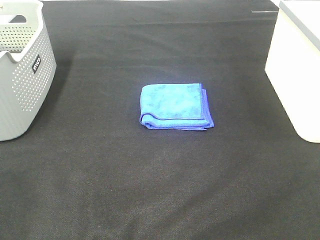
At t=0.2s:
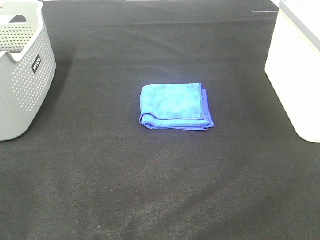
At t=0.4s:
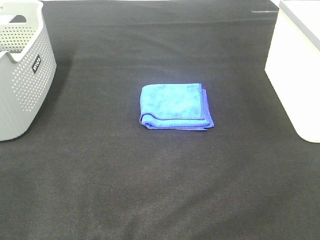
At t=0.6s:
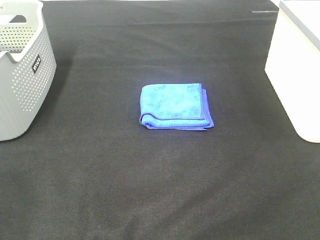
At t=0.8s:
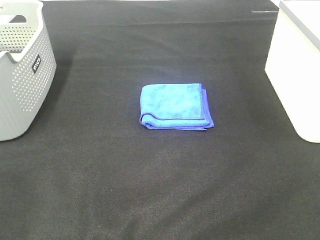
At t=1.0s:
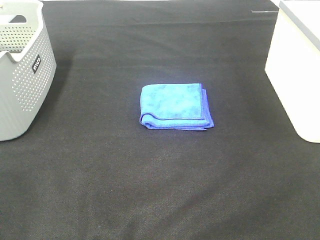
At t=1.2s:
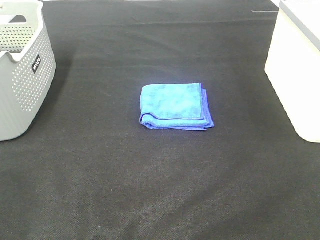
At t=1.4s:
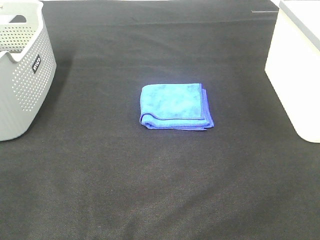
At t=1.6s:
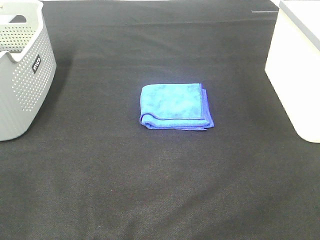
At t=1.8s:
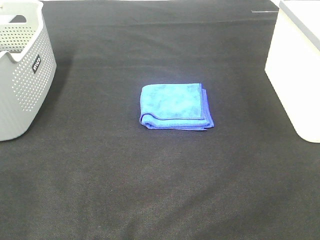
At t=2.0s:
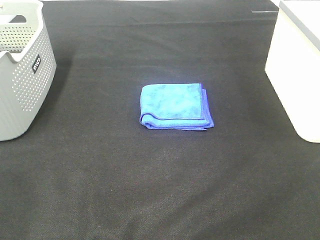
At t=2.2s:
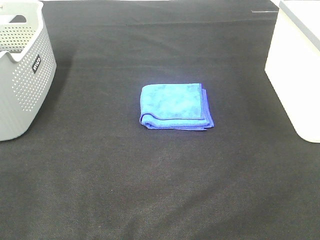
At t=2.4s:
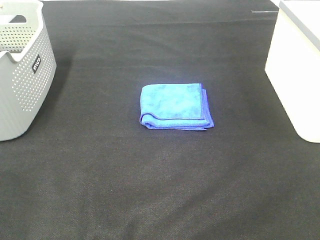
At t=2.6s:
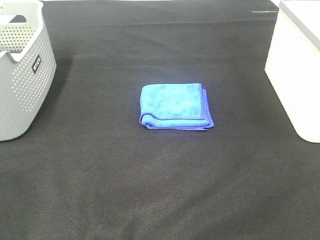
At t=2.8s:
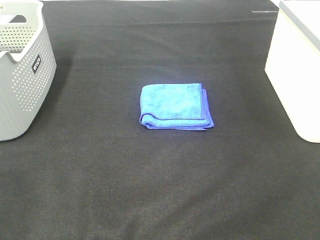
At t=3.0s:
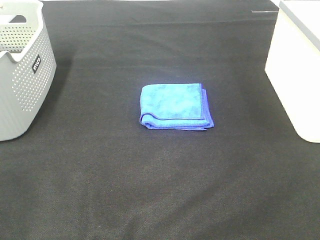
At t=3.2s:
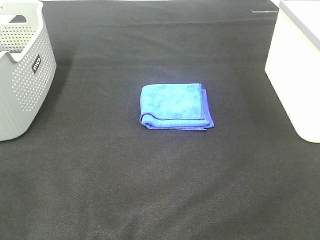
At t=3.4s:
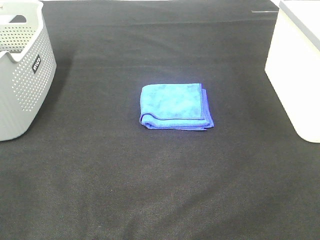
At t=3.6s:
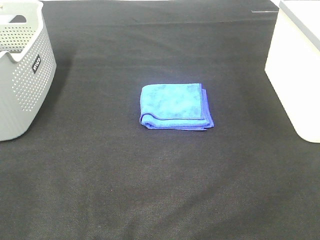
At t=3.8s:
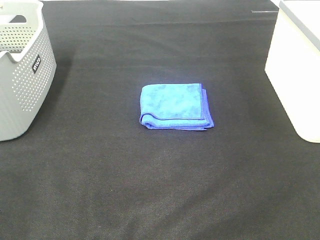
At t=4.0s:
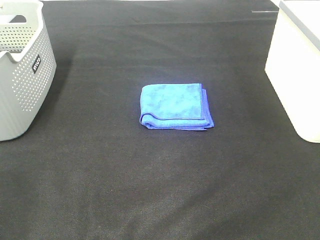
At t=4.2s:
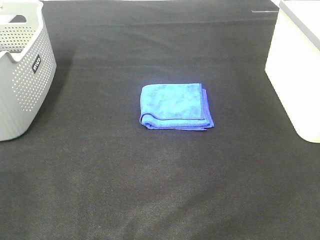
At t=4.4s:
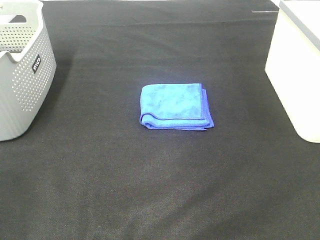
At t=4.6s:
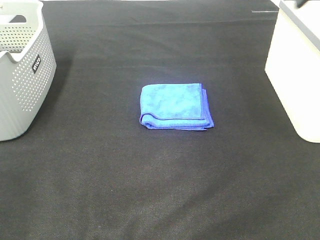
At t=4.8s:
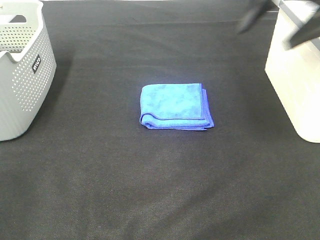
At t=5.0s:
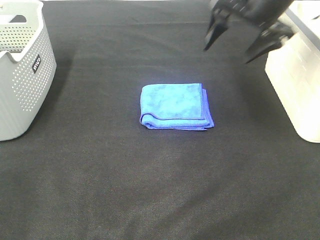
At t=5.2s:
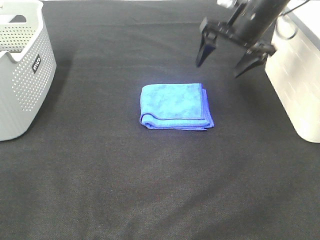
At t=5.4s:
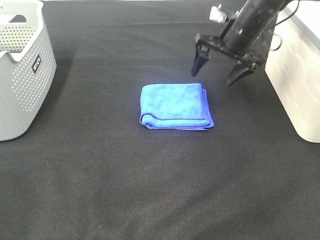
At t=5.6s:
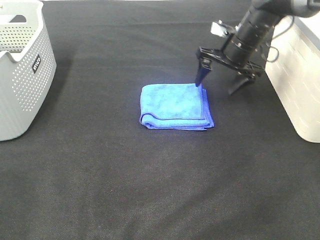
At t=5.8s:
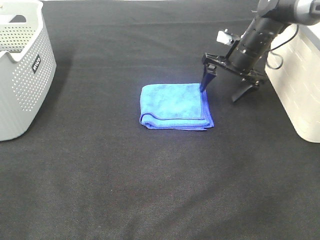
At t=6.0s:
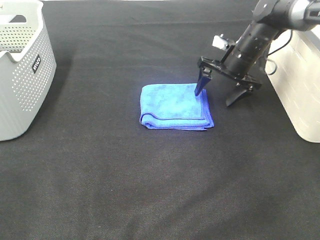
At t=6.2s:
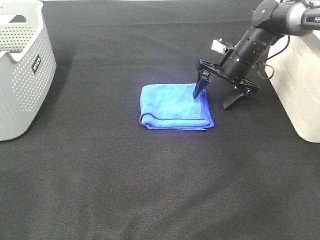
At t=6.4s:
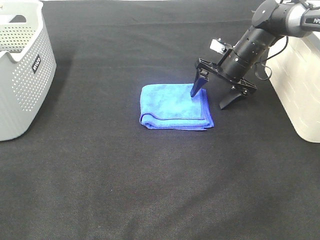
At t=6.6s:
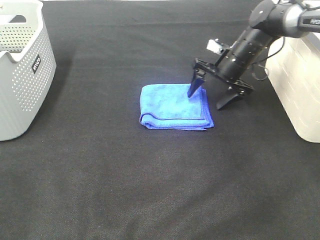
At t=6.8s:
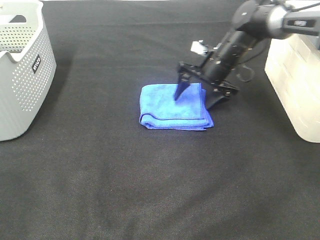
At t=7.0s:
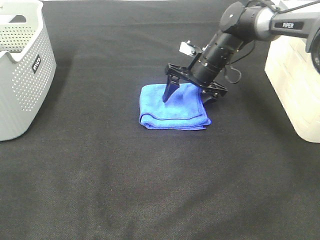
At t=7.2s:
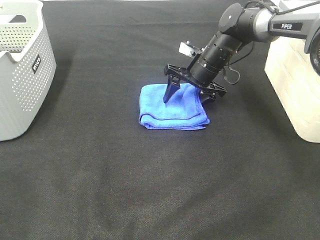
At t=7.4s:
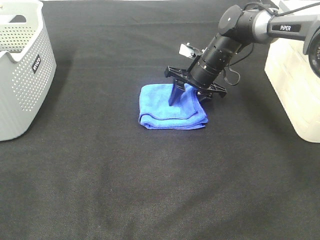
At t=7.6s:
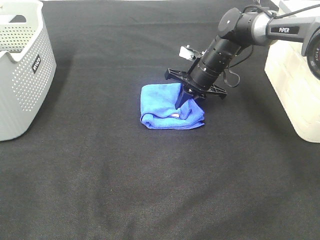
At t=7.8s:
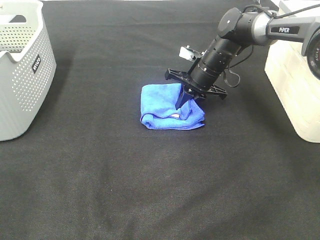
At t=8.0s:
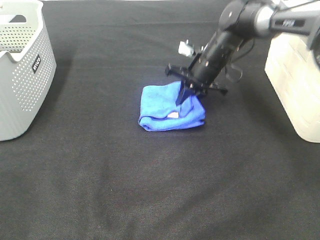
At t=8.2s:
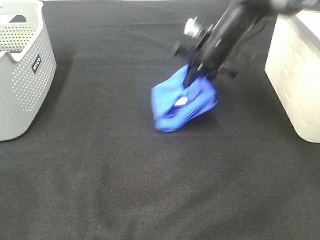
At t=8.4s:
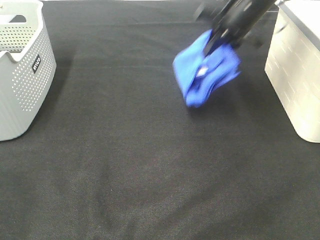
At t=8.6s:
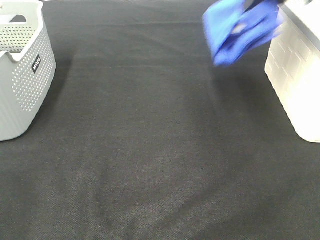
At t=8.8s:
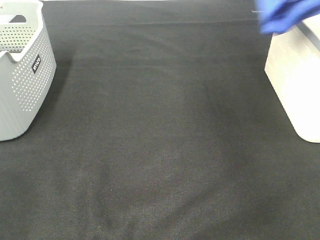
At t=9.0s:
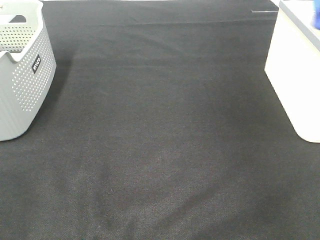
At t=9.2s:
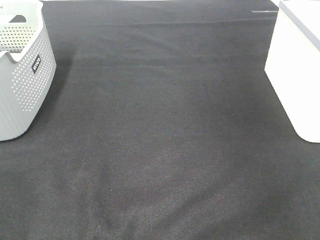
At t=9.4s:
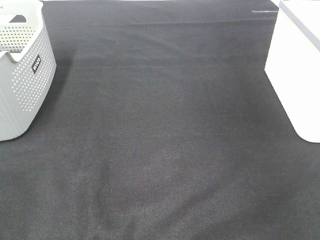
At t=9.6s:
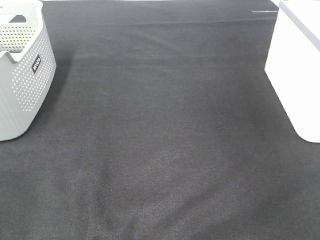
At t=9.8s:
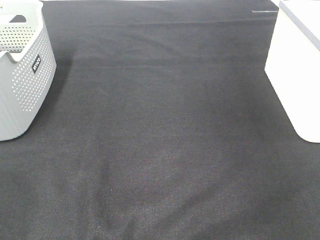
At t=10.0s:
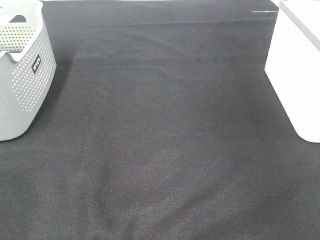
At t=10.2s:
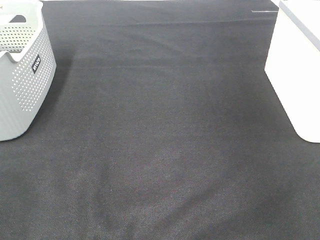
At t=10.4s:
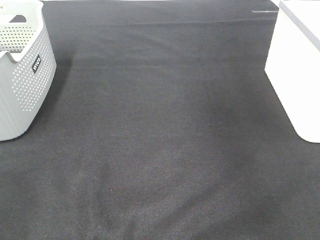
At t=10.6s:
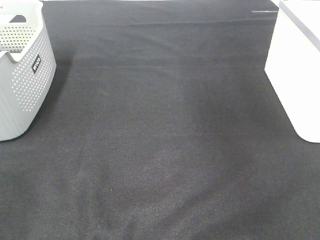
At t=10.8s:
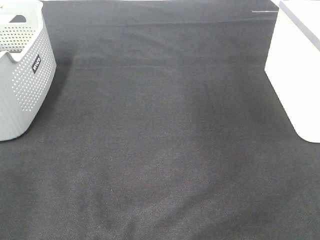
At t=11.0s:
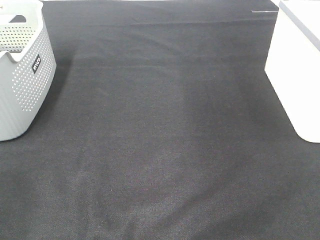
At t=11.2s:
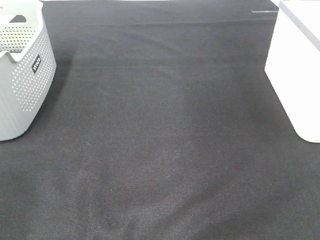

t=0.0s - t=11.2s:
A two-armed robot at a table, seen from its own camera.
Step, t=0.0s - t=7.6s: Right hand: grab the folded blue towel.
Step, t=7.8s - t=9.8s: Right hand: place the blue towel in right basket.
t=0.0s - t=3.2s: Both grippers stay put.
t=3.2s - t=4.8s: The right gripper travels forward by some 35 cm.
t=4.8s - t=6.4s: The right gripper is displaced downward and forward by some 25 cm.
t=6.4s - t=8.0s: The right gripper travels to the left by some 5 cm, and closes.
t=8.0s - t=9.6s: The right gripper travels to the right and upward by some 35 cm.

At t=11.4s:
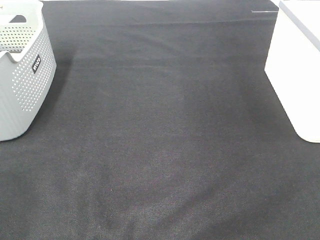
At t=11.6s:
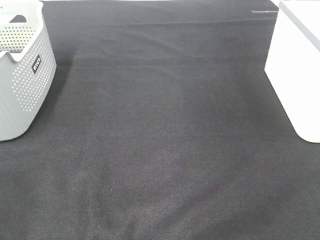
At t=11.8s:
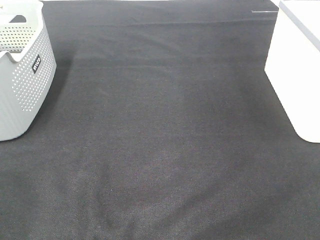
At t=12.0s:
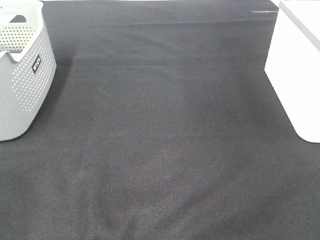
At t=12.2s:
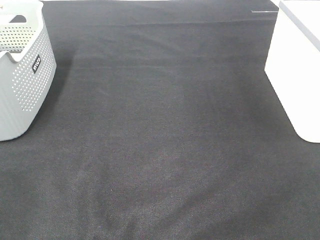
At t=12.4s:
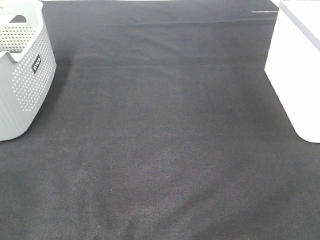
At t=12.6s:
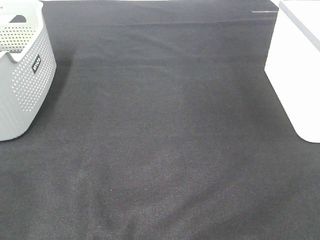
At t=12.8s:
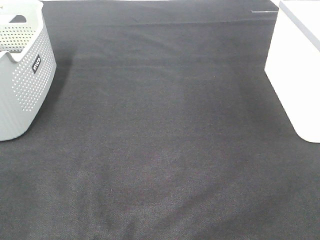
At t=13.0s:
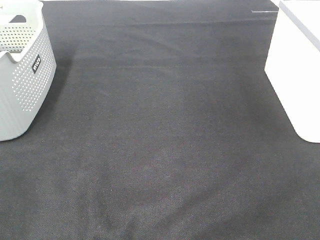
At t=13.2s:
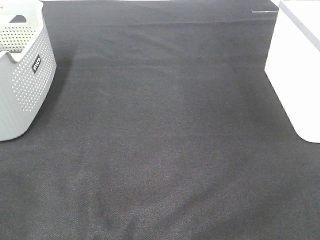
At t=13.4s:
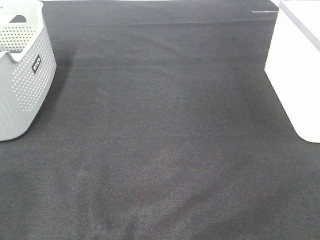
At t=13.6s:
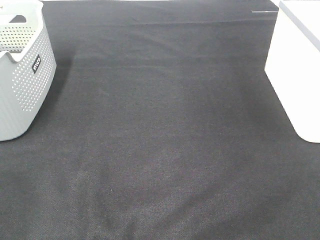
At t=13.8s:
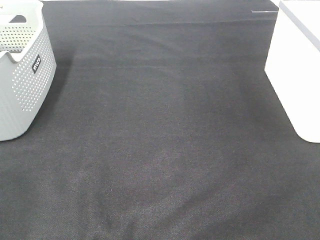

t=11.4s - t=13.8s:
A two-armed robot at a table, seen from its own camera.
t=12.6s - t=13.8s: Neither gripper changes place.

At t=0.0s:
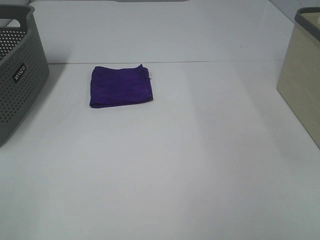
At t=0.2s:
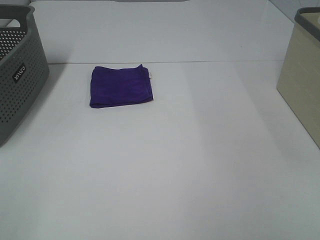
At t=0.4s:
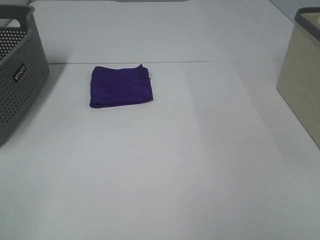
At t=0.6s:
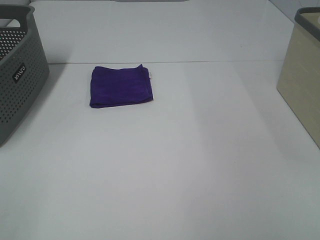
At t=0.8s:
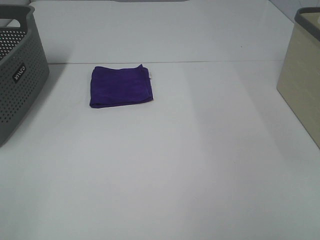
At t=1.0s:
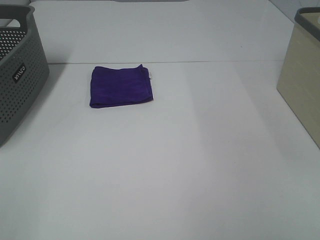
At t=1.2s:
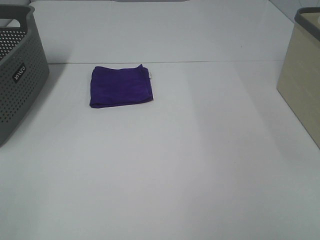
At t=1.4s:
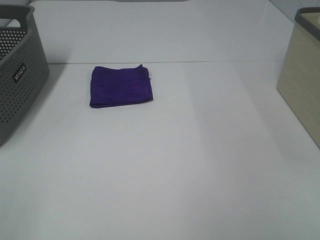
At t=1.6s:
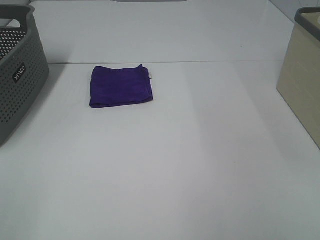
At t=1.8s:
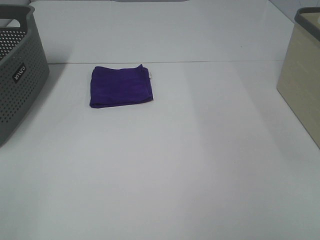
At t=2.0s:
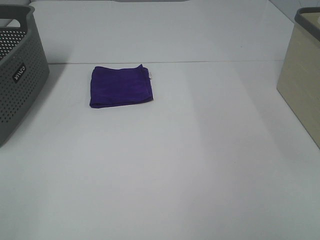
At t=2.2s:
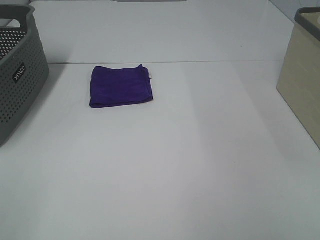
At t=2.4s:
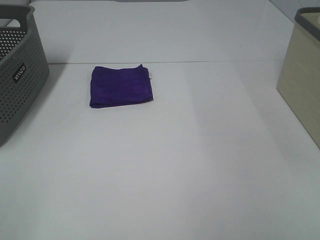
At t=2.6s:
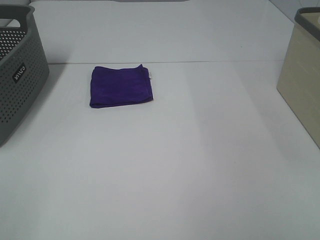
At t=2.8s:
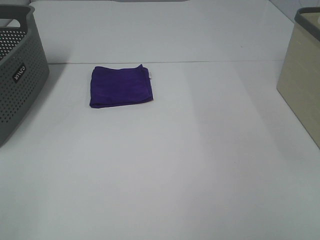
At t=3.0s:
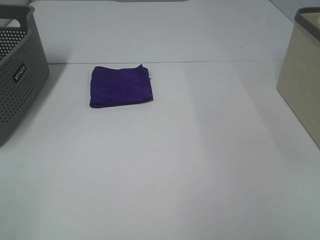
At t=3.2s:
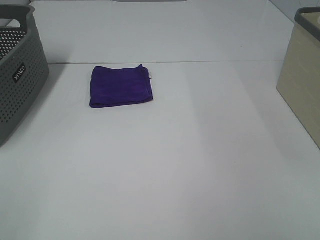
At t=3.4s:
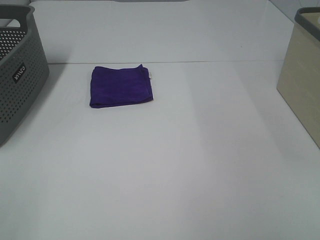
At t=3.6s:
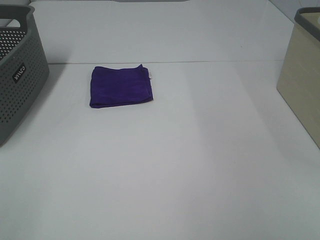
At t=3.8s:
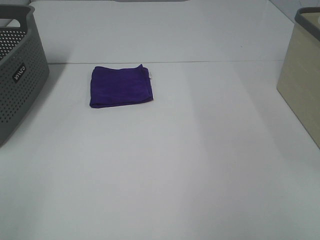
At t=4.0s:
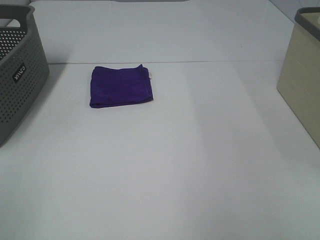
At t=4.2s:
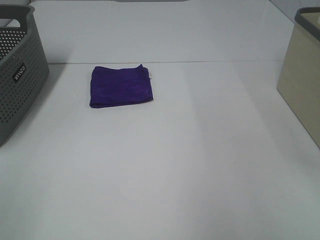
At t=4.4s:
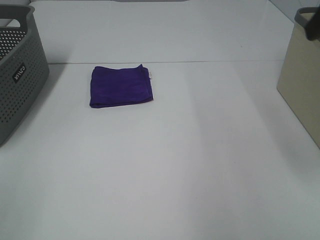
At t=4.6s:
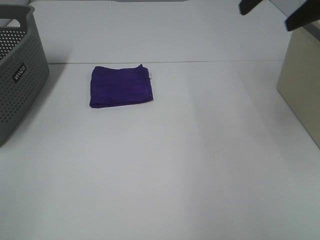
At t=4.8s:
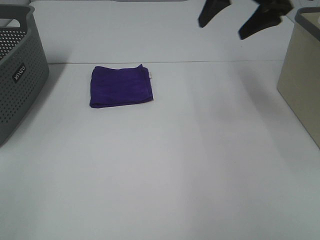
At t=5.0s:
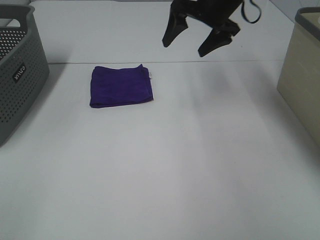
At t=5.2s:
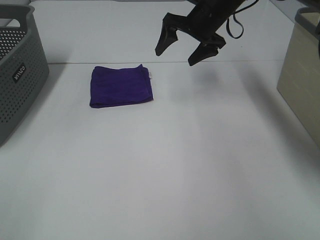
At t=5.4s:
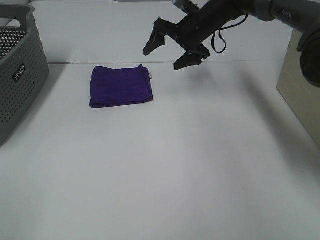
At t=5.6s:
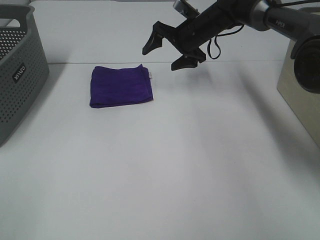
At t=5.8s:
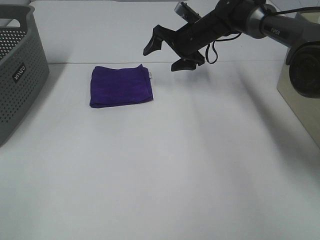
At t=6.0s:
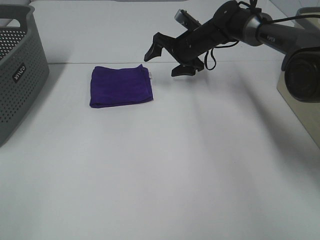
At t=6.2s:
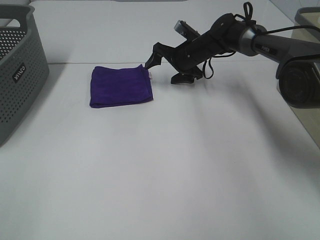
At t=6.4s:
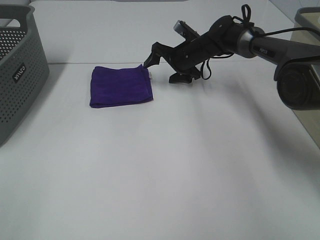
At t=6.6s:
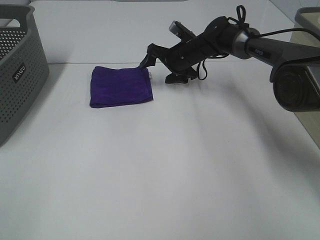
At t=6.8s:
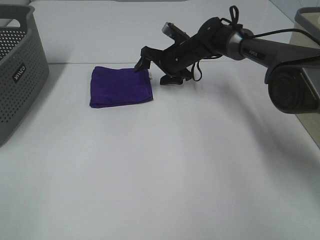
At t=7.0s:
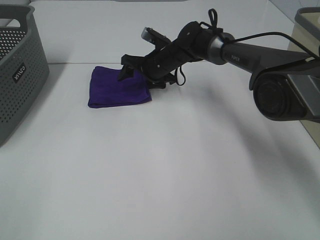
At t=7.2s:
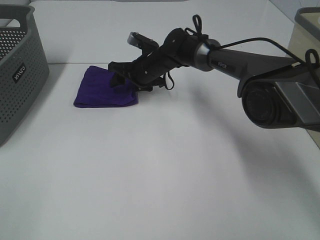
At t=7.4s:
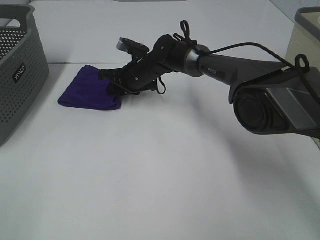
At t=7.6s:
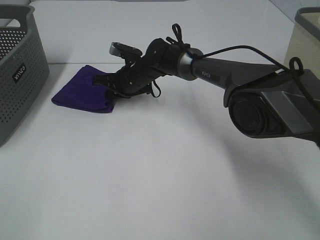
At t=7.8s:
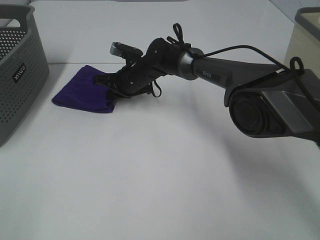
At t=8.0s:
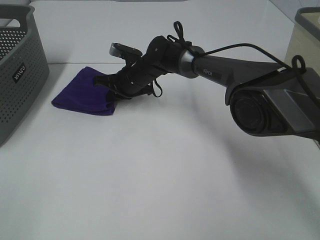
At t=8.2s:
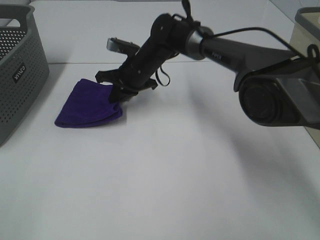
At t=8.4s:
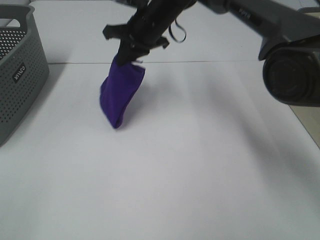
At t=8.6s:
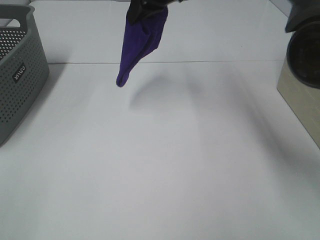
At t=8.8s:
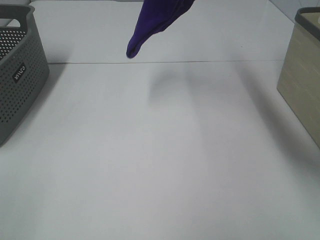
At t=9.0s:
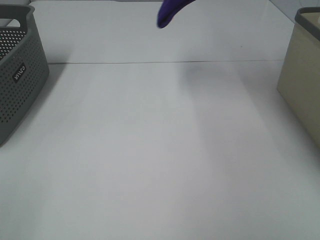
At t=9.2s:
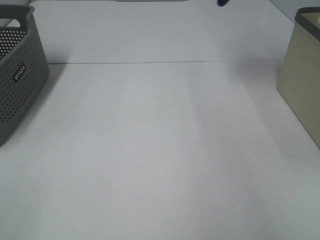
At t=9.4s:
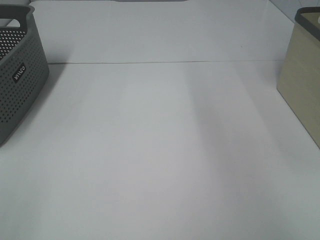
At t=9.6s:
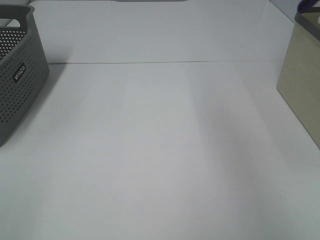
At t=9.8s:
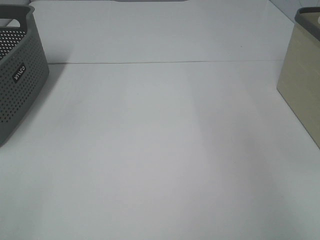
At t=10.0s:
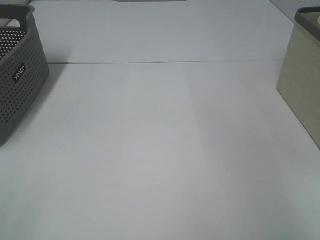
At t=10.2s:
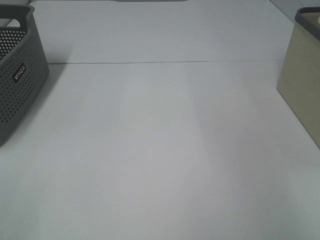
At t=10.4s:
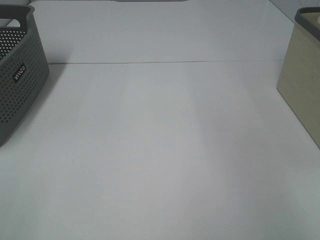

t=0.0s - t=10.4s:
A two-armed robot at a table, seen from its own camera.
Step, t=0.0s - t=7.6s: Right hand: grab the folded purple towel.
t=0.0s - t=3.0s: Both grippers stay put.
t=4.4s - t=6.0s: The right gripper is displaced forward, downward and to the left by roughly 40 cm.
t=6.0s - t=7.4s: The right gripper moves to the left and backward, roughly 15 cm, and closes up.
t=7.4s - t=9.0s: The right gripper is displaced upward and to the right by about 40 cm.
t=9.0s - t=10.4s: The right gripper shifts roughly 30 cm to the right, and opens its fingers.
